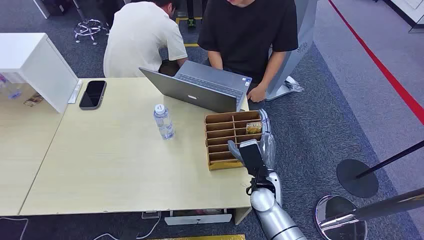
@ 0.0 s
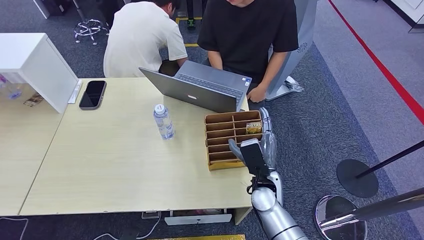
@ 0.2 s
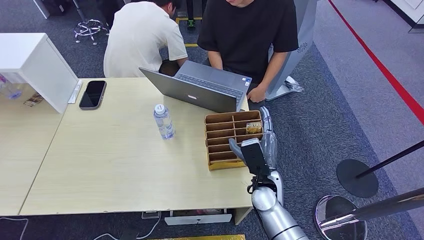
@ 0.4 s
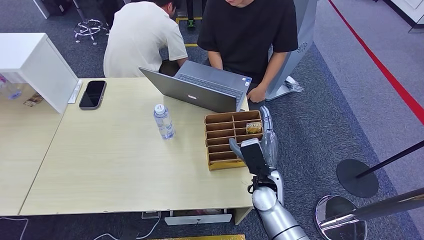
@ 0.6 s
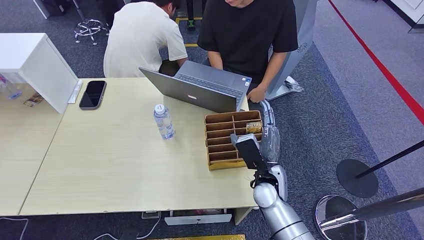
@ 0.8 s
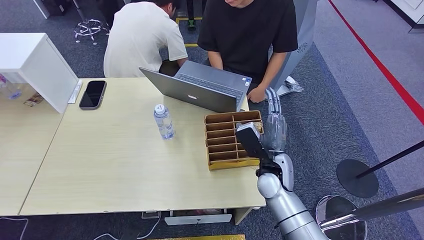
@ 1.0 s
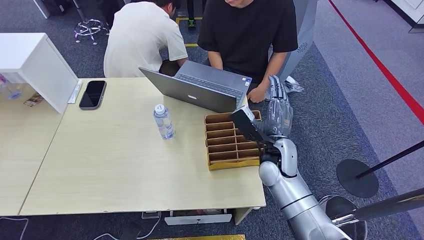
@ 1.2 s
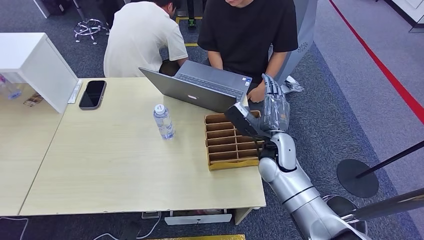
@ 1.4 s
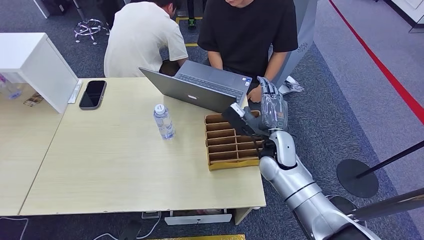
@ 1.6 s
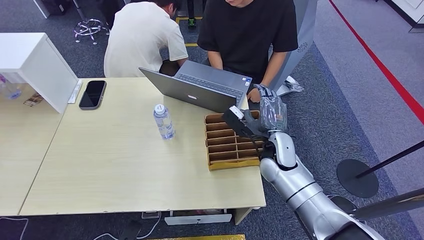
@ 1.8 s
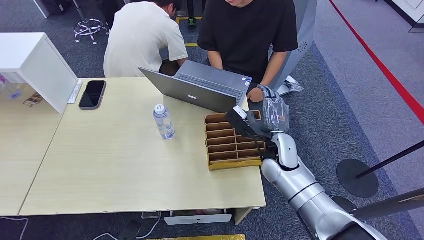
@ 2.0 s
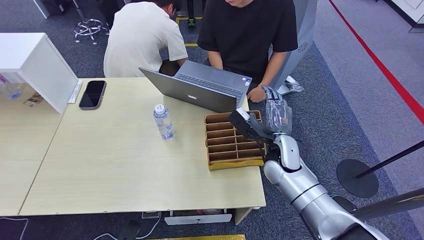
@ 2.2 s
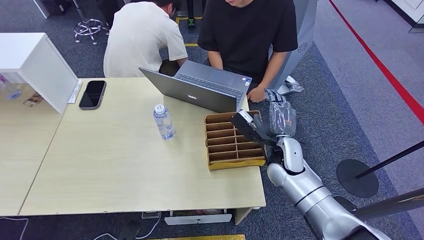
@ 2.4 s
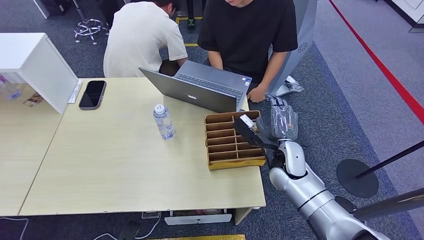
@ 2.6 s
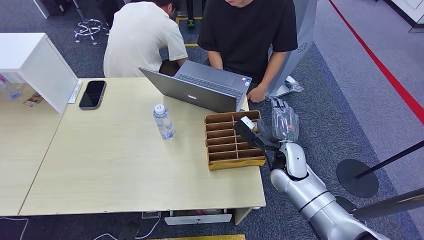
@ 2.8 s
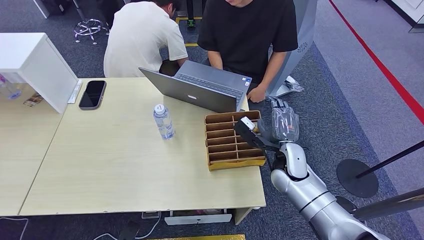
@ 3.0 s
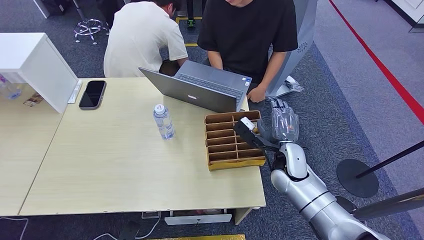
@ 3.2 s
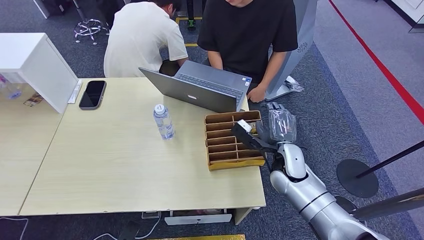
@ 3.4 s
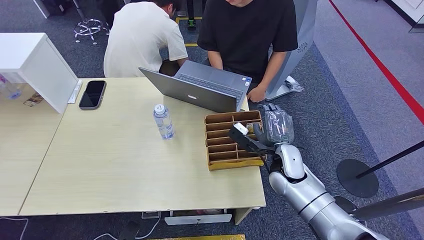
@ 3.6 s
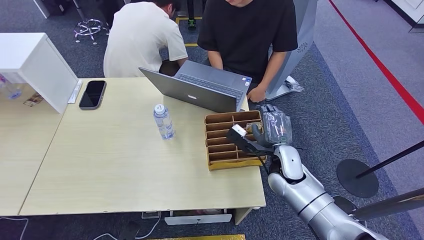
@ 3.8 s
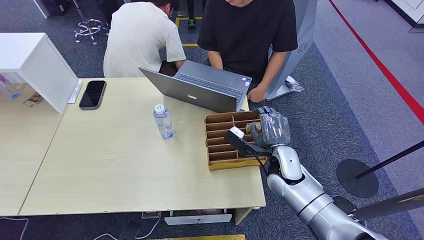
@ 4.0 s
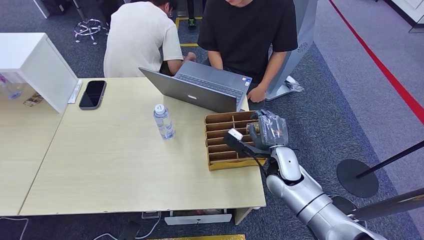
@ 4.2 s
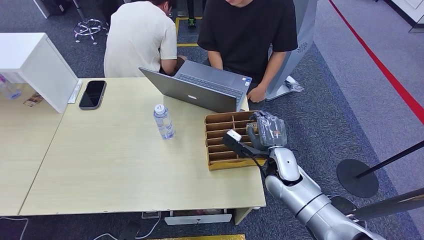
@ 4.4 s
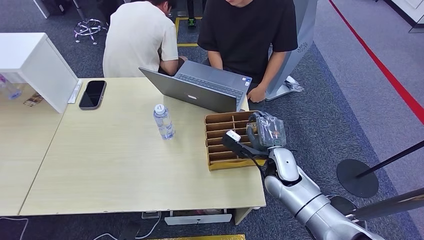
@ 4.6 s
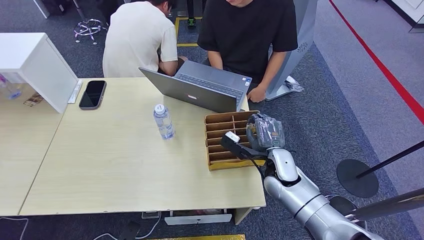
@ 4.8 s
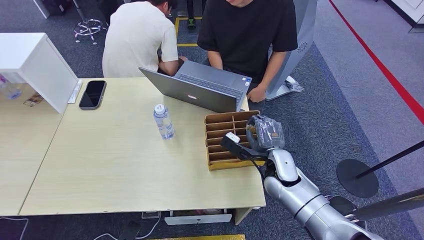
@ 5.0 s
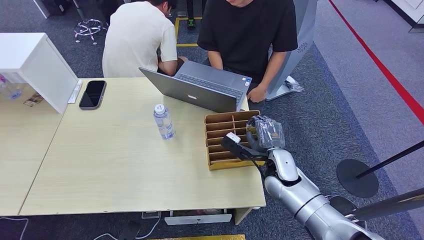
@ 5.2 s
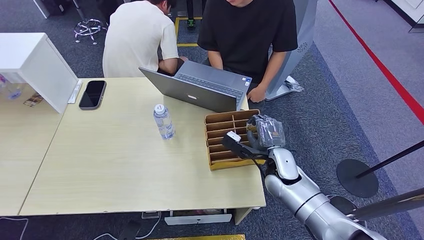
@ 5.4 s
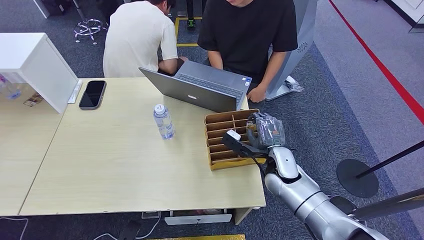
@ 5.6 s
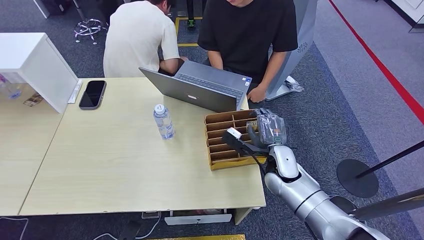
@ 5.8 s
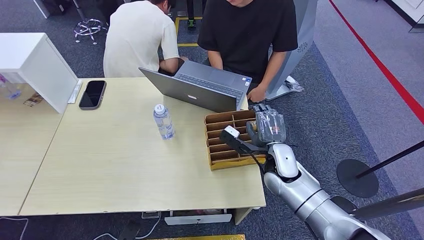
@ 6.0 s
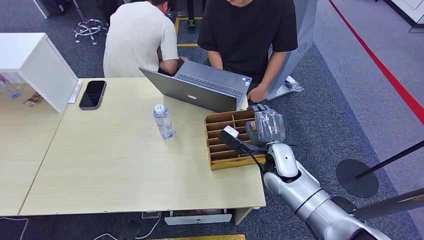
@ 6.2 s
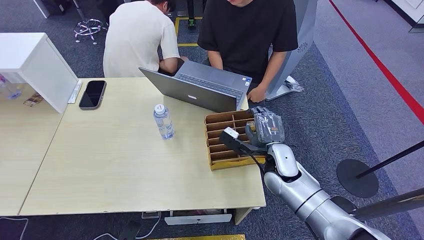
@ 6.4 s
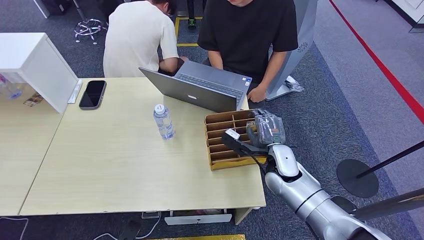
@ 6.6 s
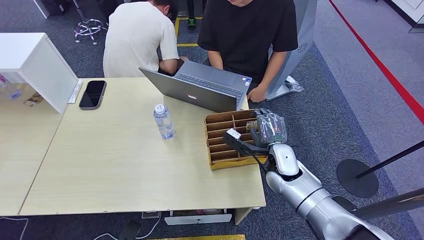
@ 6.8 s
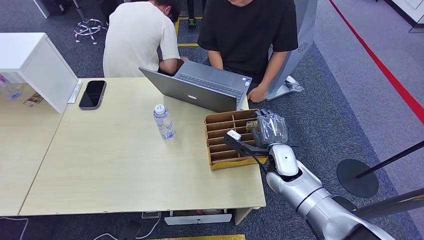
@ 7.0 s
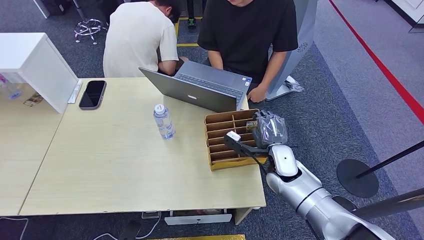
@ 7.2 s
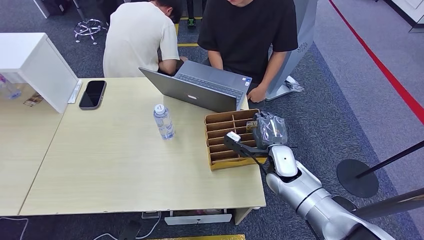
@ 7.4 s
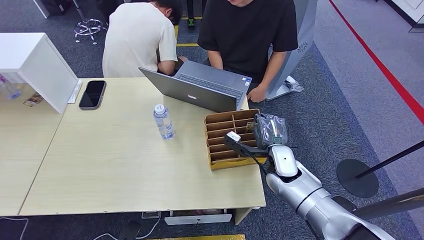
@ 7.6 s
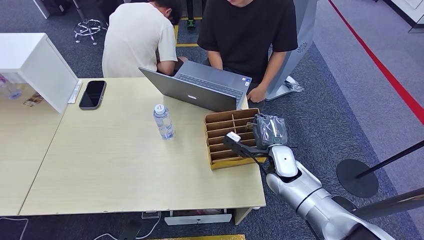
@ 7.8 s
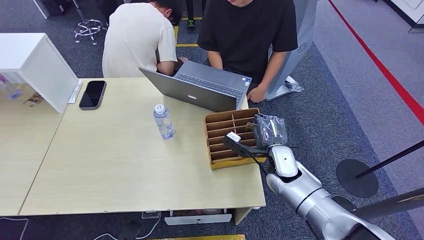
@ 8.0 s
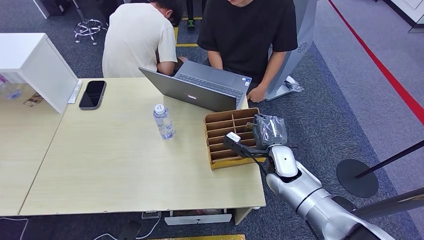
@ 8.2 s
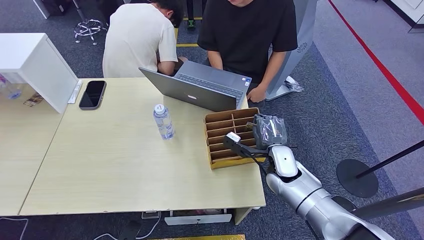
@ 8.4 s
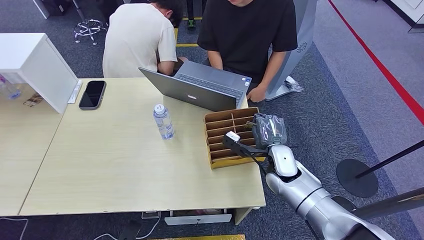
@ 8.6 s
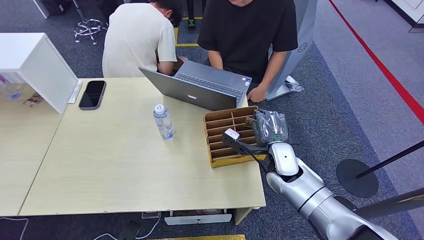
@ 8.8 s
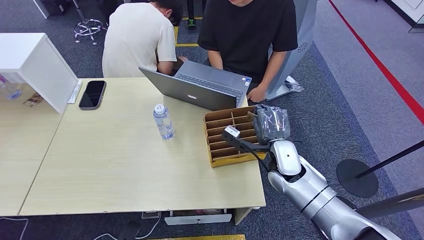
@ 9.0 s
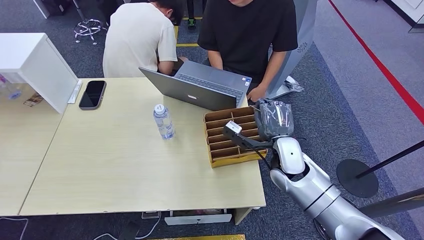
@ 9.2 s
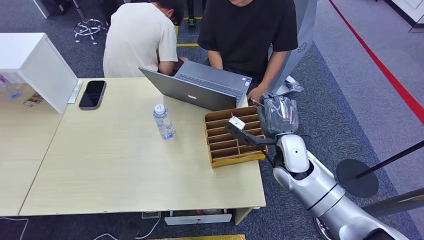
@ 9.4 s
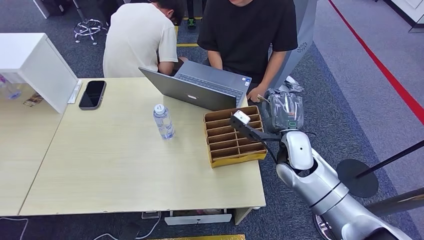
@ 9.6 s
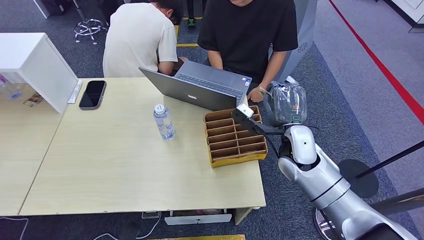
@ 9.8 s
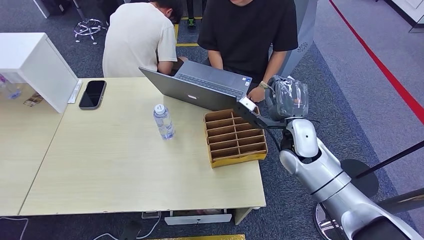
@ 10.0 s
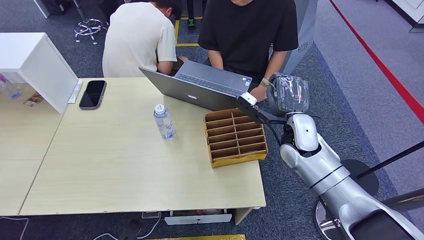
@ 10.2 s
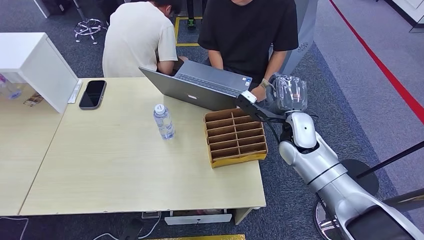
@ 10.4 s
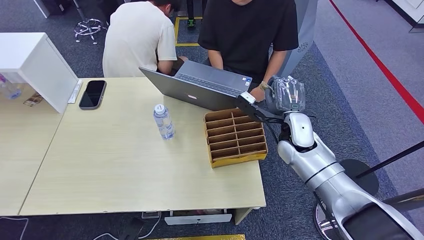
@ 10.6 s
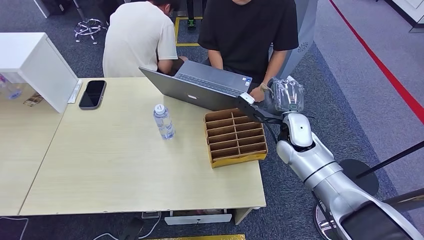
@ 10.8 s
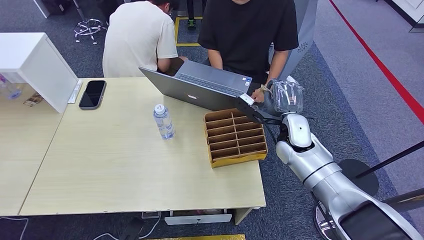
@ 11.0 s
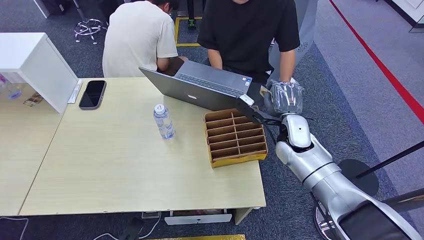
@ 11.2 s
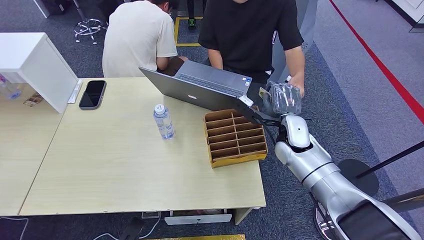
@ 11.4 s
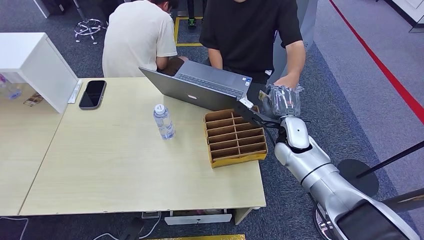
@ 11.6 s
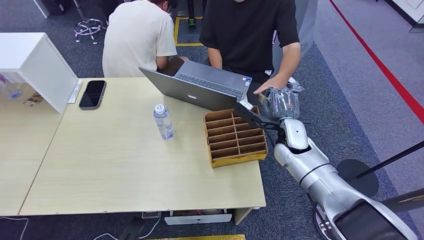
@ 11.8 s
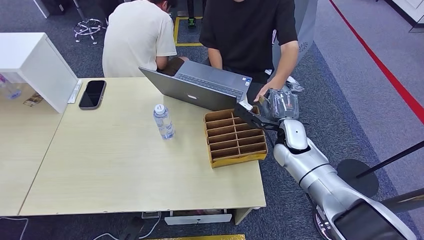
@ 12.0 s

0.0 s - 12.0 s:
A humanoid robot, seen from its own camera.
Step, 0.0 s - 9.6 s: Pick up the key card from the card box.
Step, 10.0 s - 12.0 s: Hand the key card to the target.
1.6 s - 3.0 s: The right hand changes place by some 5 cm.
3.0 s - 4.4 s: The hands move only a little.
4.4 s - 6.0 s: Neither hand changes place.
6.0 s - 9.0 s: The hands stay close to where they were, moving slightly.
9.0 s - 10.4 s: The right hand is displaced upward by roughly 5 cm.
10.4 s - 12.0 s: There are only small adjustments of the hands.
